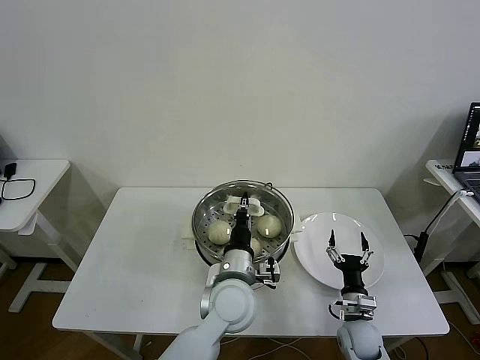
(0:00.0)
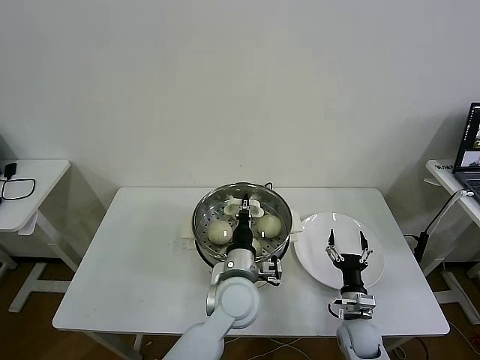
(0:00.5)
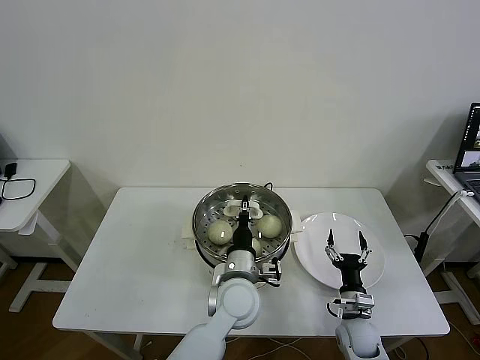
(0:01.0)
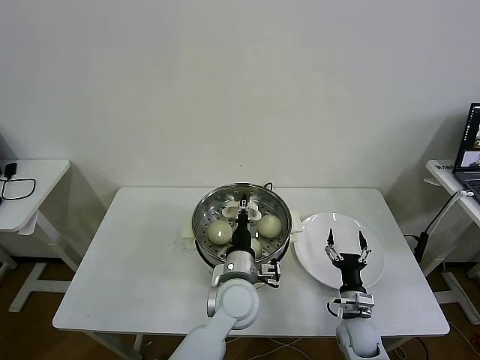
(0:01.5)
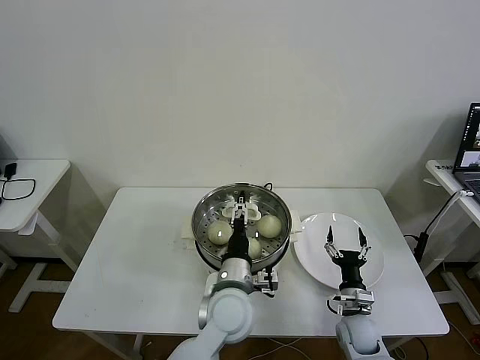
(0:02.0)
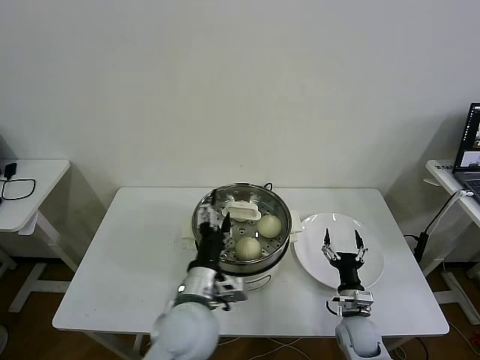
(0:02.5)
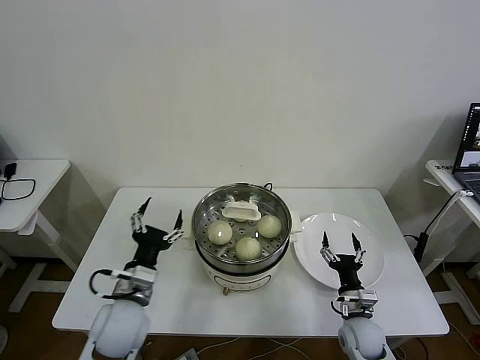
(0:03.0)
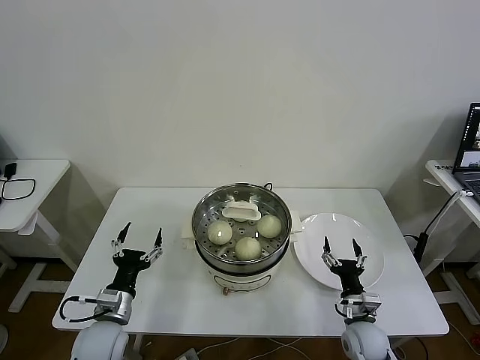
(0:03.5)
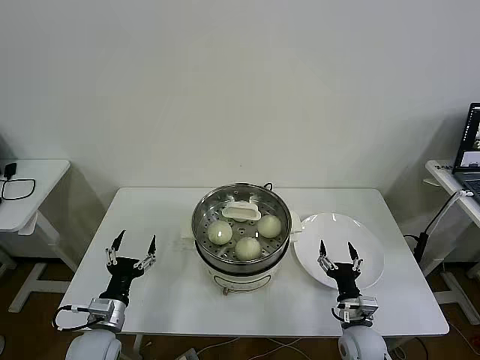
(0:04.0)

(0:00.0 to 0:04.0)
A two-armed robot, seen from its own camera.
Task of the whole recording: take steamed baozi put them in steamer then cover it.
Step, 0:00.0 - 0:02.0: Place the pot lid on the steamer with left gripper.
0:00.0 - 0:02.0: The left gripper opens its fingers.
0:02.0 - 0:04.0: The left gripper moves to the left, some 30 cm.
